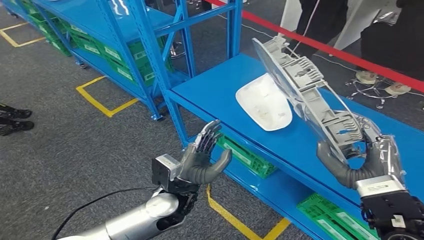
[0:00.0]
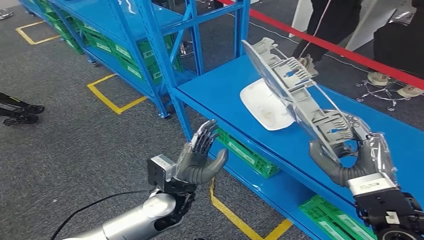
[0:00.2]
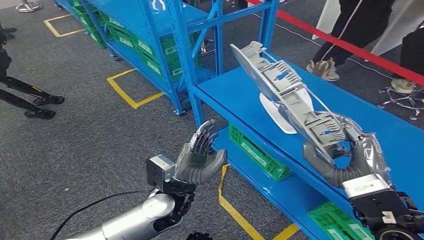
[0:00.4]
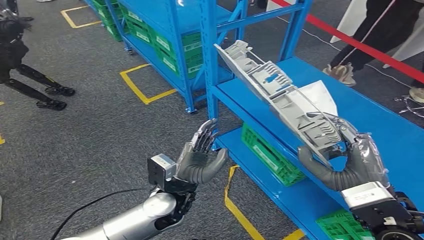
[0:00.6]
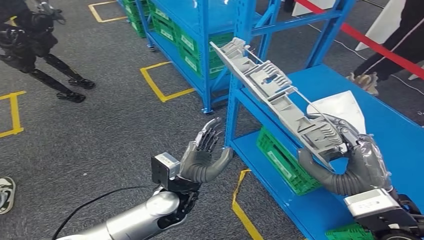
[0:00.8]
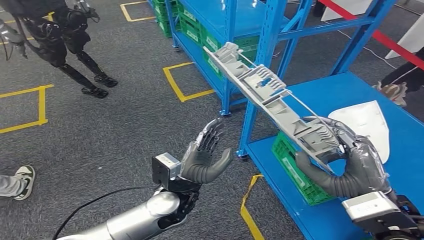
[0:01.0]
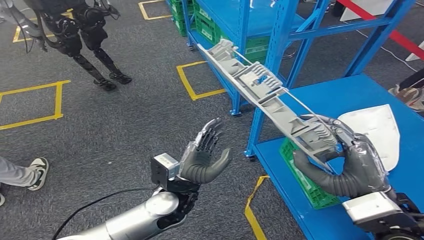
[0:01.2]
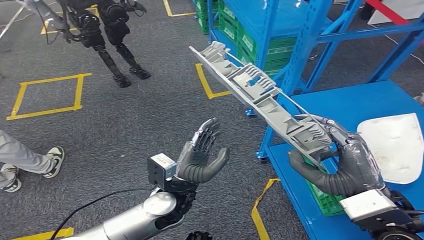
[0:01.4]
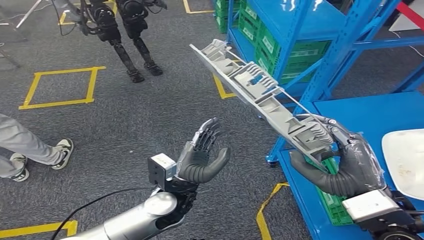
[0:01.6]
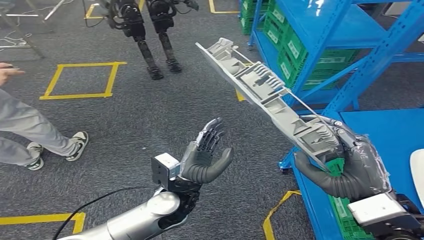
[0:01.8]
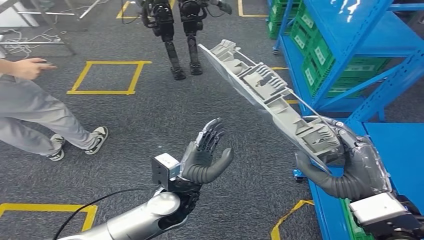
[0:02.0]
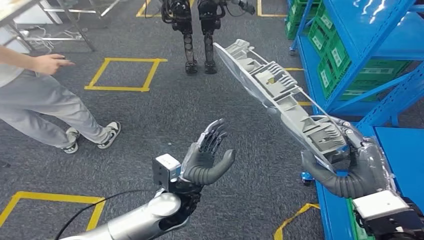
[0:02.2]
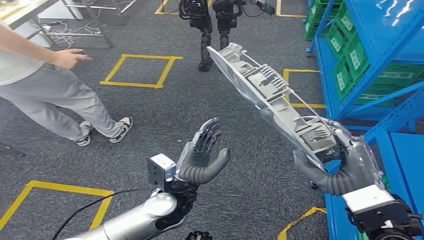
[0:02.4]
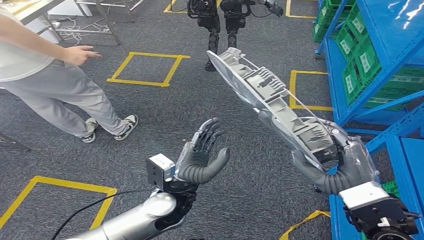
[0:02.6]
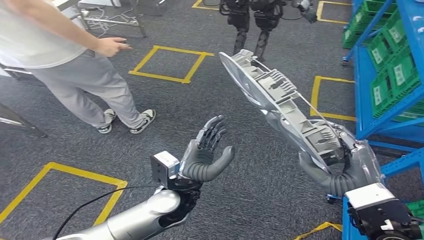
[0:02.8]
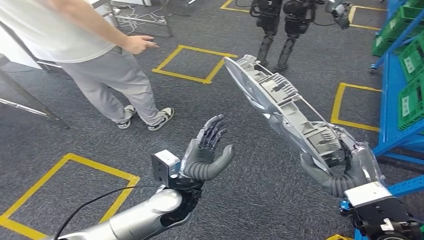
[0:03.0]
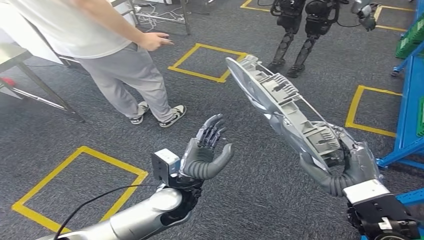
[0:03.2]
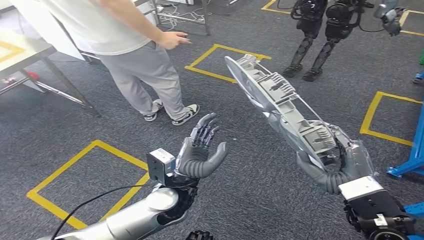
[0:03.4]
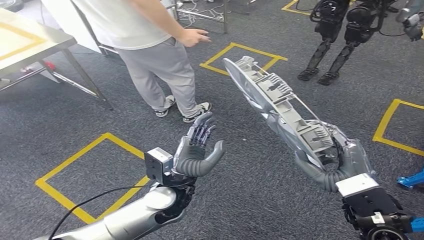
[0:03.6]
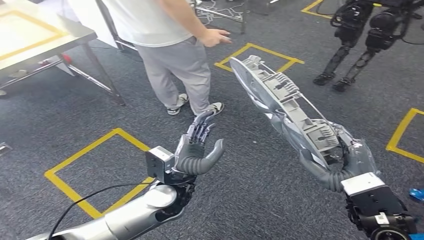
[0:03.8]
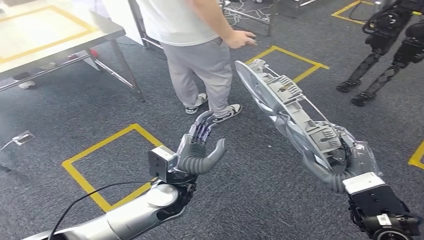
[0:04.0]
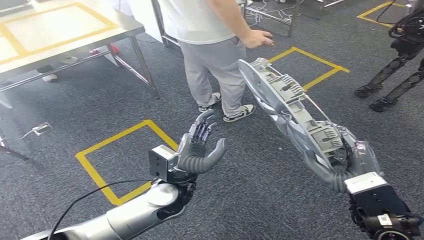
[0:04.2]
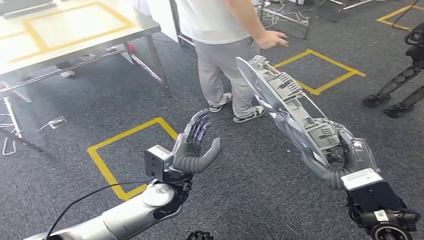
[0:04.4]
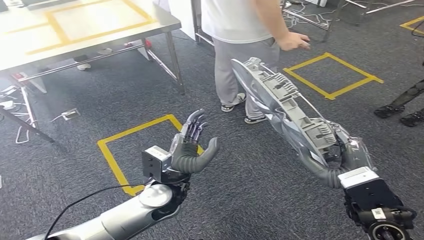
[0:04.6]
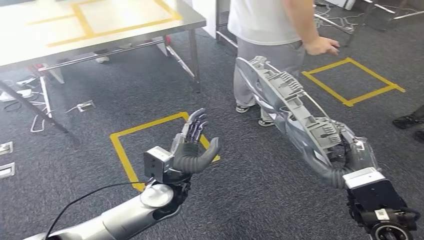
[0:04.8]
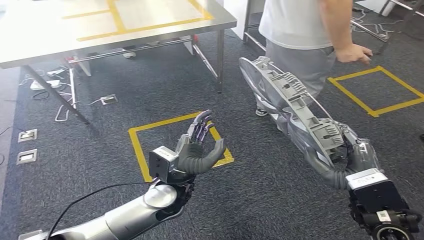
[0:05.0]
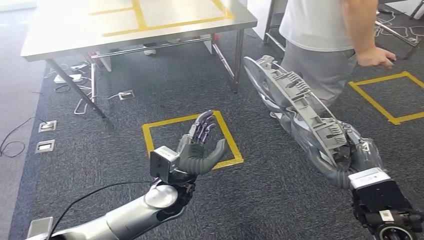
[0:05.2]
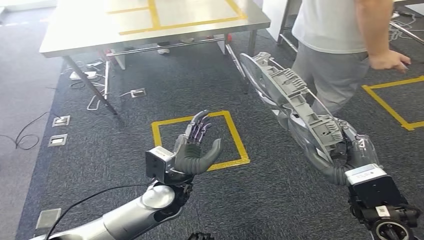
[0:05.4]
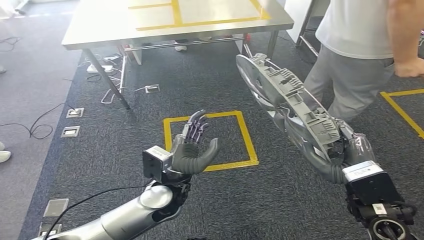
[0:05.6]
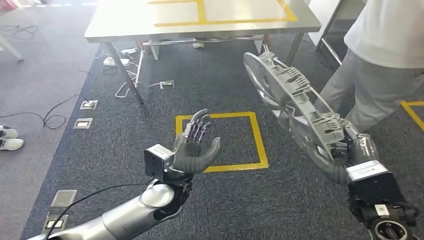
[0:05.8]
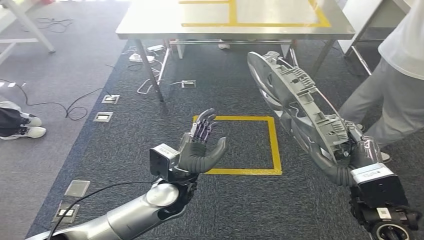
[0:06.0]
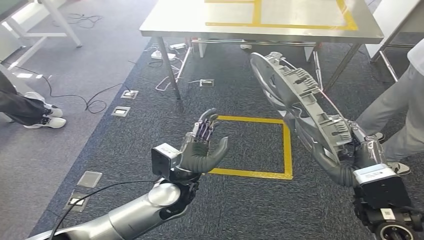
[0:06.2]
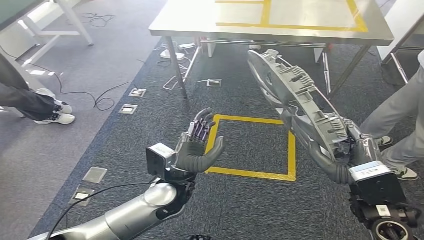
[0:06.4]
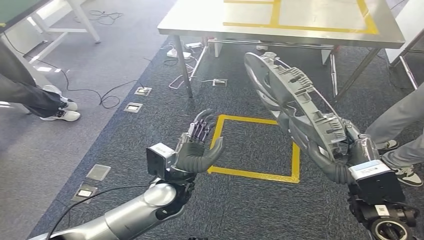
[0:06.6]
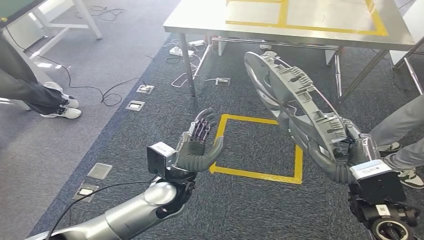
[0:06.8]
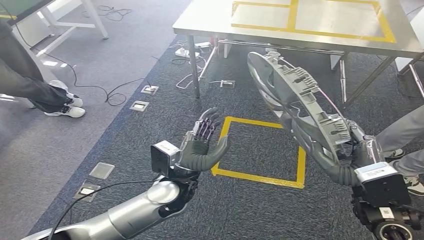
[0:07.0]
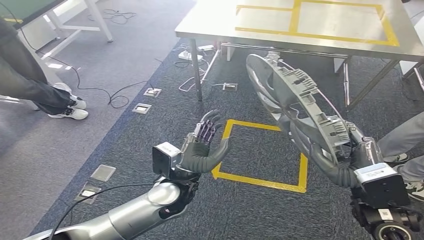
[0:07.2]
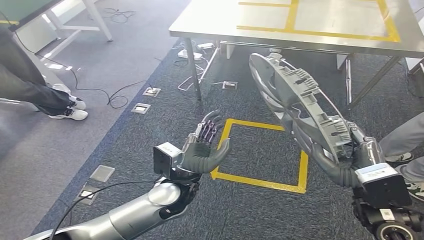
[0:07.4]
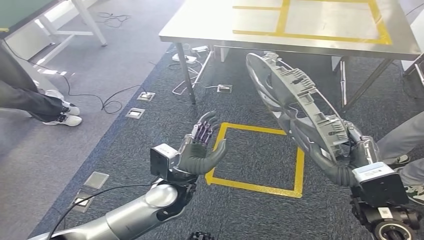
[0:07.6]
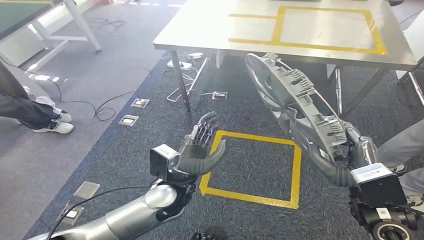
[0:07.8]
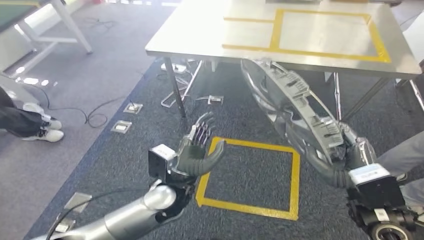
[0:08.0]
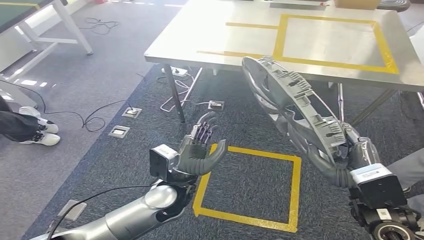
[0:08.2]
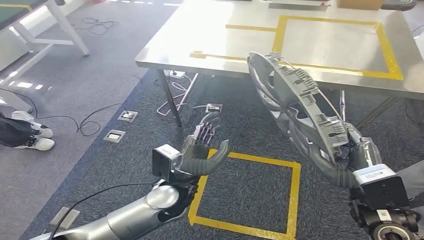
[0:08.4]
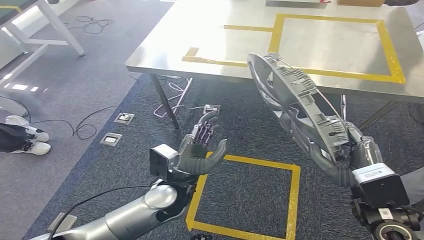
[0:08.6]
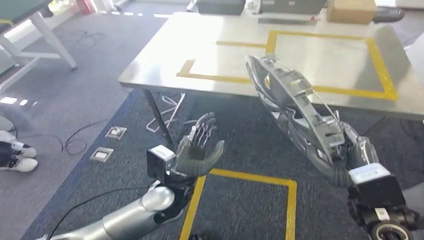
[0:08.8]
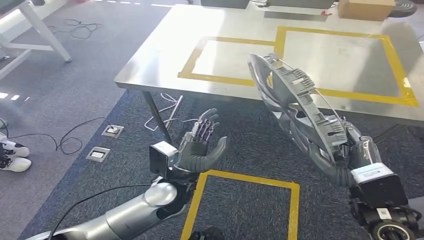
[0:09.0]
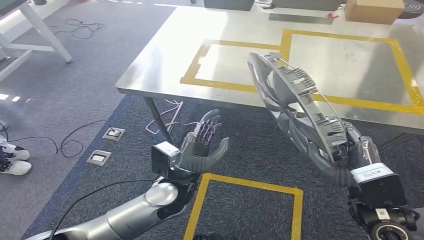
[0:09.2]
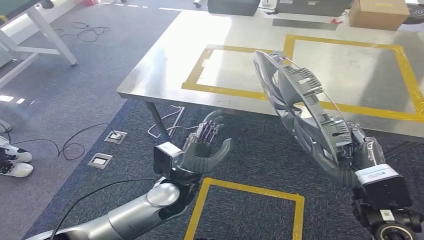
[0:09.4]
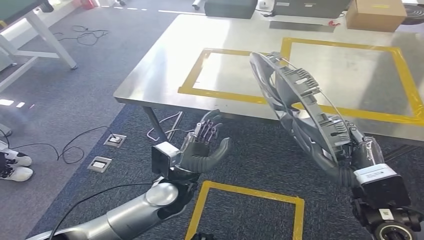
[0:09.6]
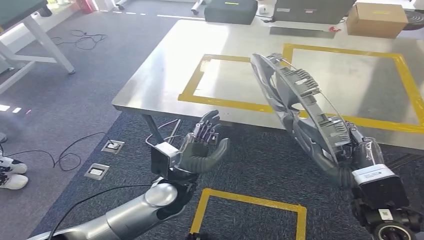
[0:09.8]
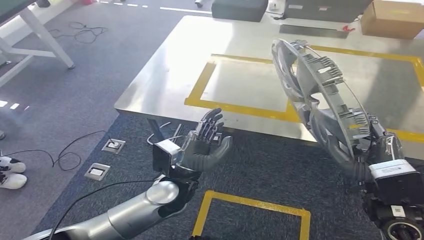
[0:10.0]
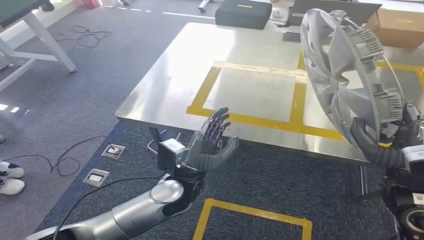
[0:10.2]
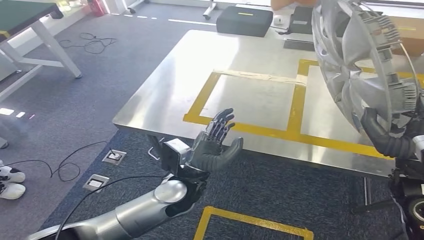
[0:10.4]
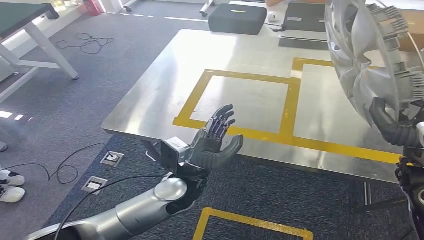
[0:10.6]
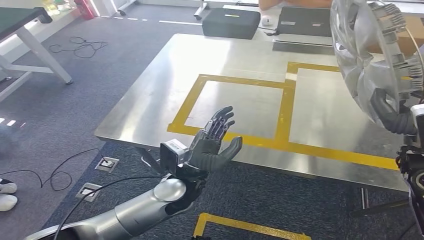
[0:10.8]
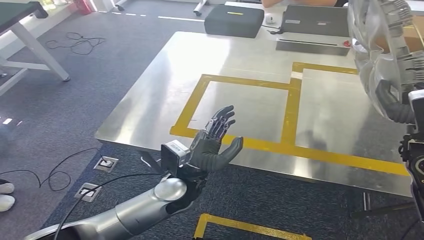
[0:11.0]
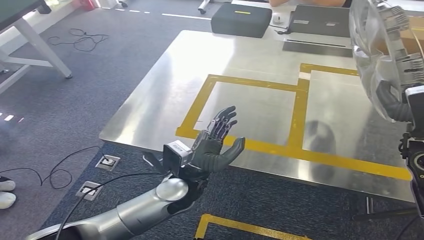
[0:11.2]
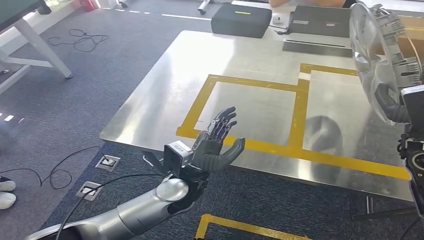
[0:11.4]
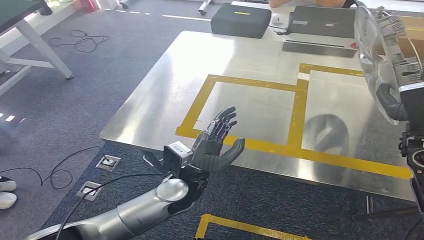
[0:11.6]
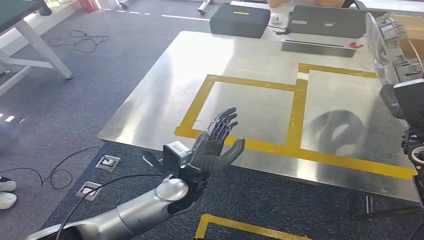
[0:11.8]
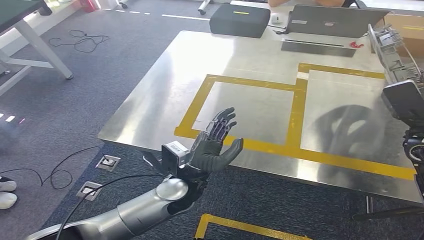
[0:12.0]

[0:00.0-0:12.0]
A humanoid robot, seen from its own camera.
Step, 0:00.0 to 0:11.4: Move the small component to the workbench.

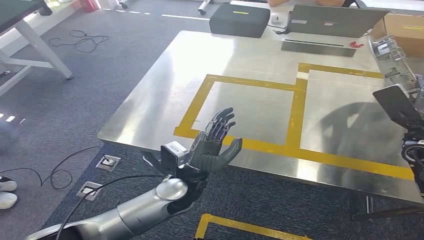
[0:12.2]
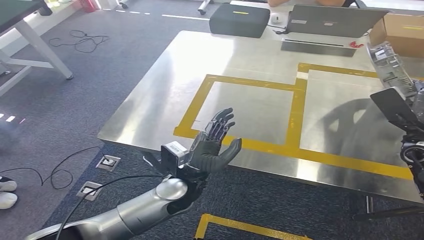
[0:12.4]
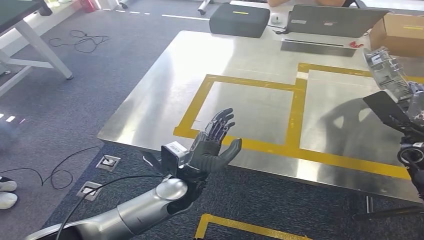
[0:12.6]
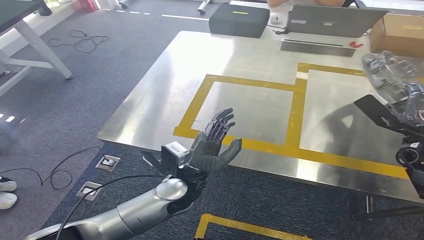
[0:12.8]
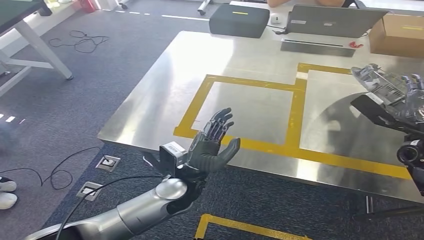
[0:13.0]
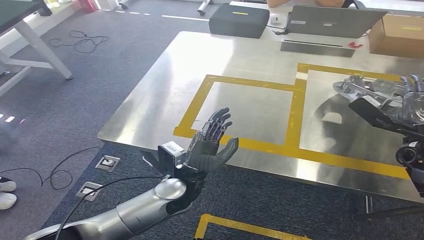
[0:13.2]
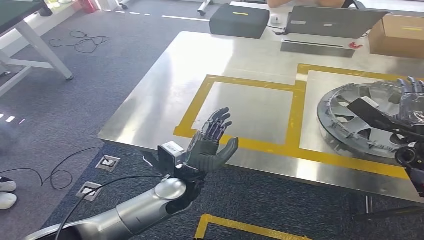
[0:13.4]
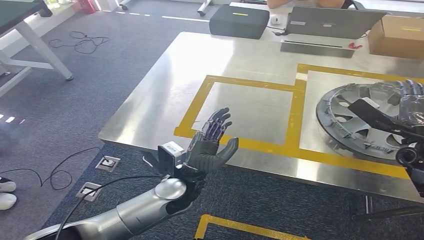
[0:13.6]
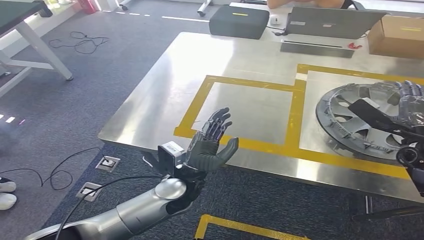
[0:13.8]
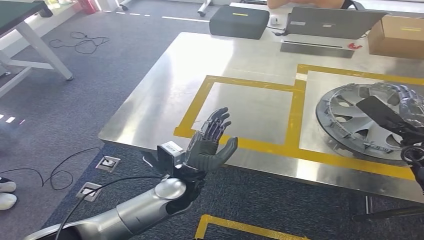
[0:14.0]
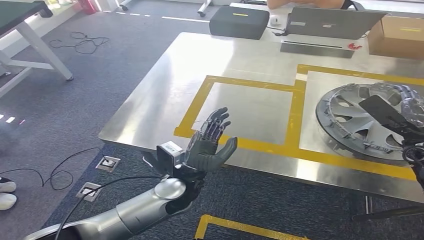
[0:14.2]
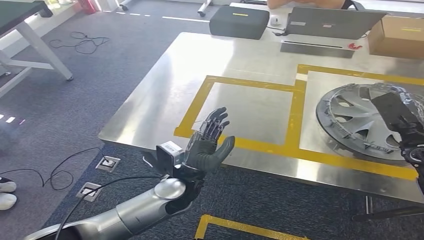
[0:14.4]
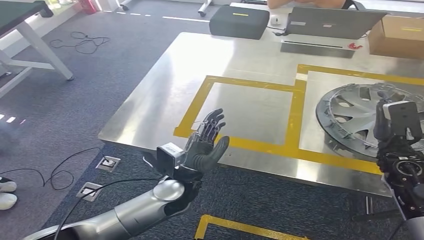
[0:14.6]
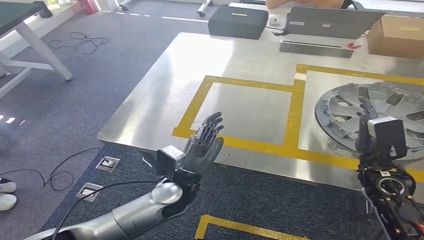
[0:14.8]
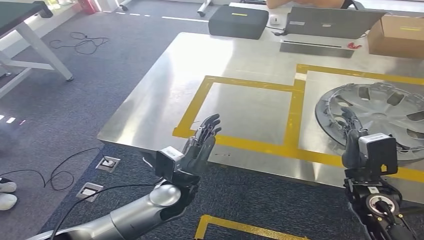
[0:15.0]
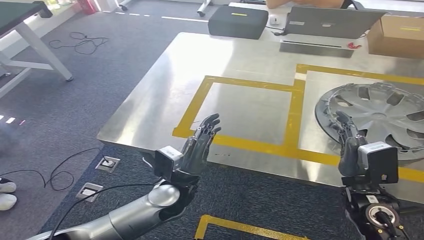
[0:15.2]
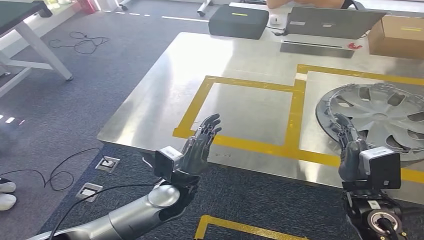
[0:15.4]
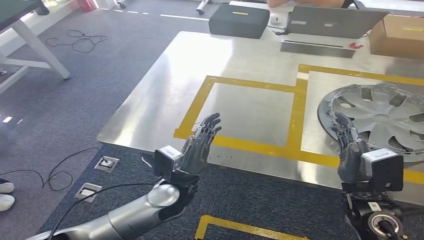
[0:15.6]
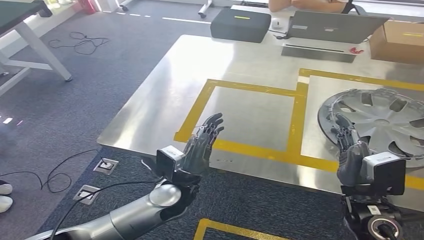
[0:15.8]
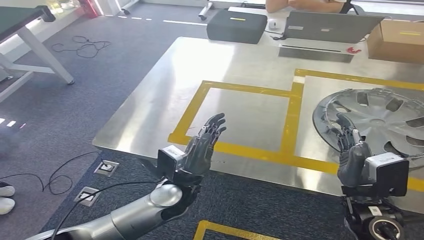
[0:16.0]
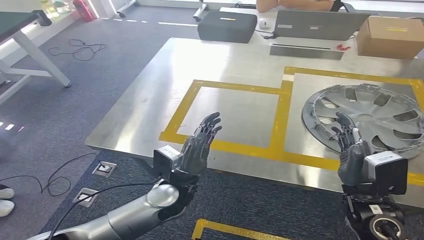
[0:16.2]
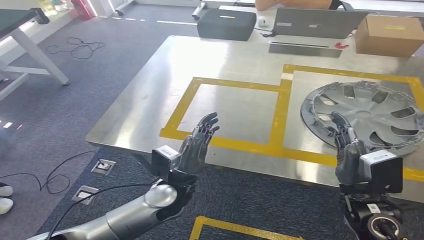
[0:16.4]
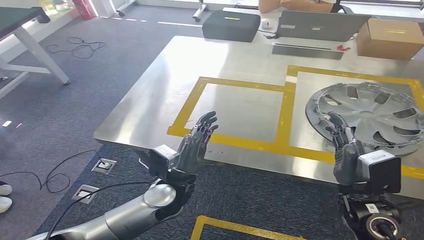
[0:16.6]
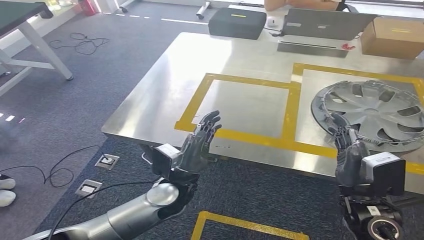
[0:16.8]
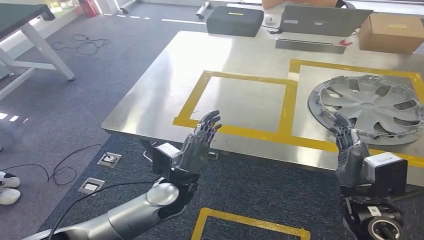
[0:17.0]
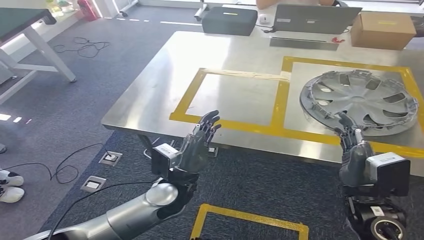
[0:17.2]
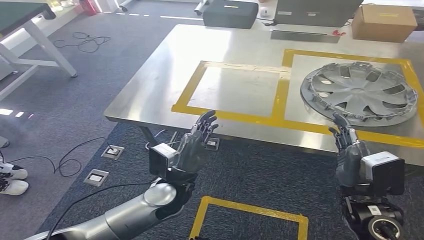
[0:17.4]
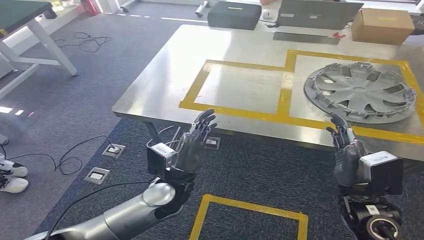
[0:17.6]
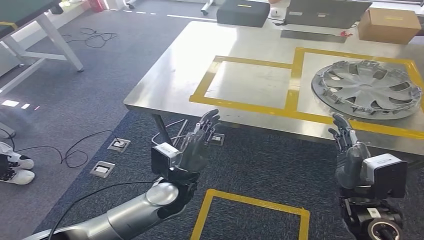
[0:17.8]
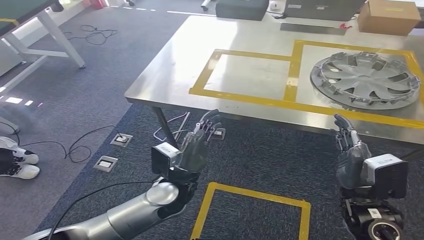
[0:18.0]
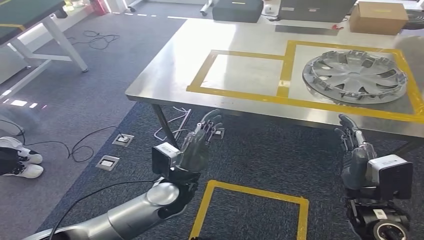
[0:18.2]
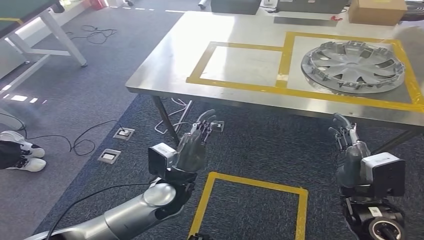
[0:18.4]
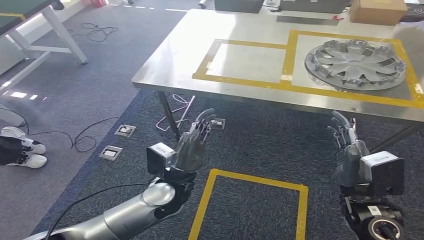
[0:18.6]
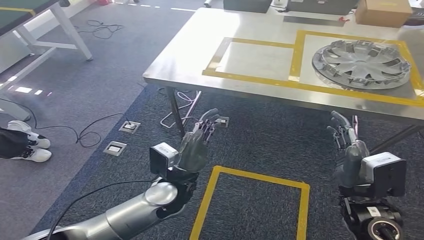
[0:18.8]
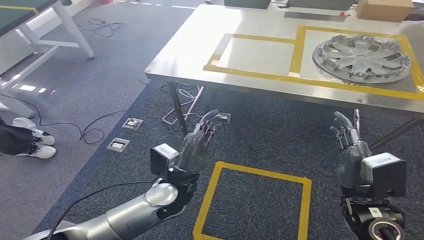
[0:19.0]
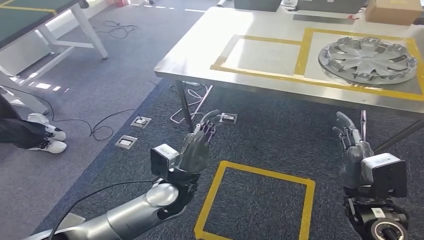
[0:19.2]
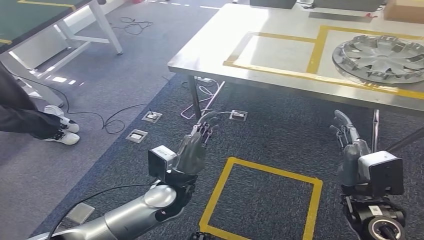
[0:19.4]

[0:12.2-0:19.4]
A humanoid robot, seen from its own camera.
Step, 0:12.2 to 0:14.6: Insert the small component into the corresponding slot on the workbench.
0:13.6 to 0:15.0: The right hand moves backward and to the left, roughly 20 cm.
